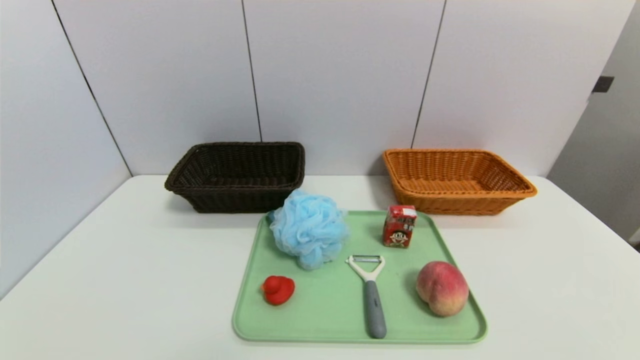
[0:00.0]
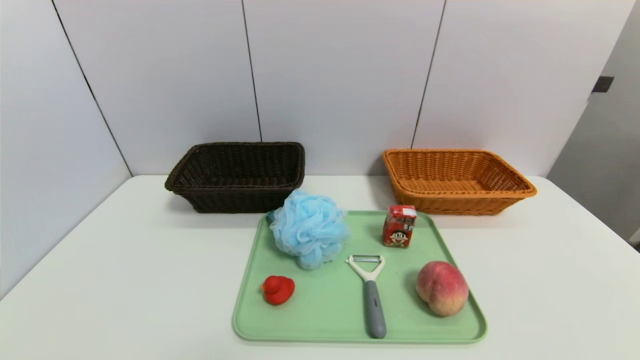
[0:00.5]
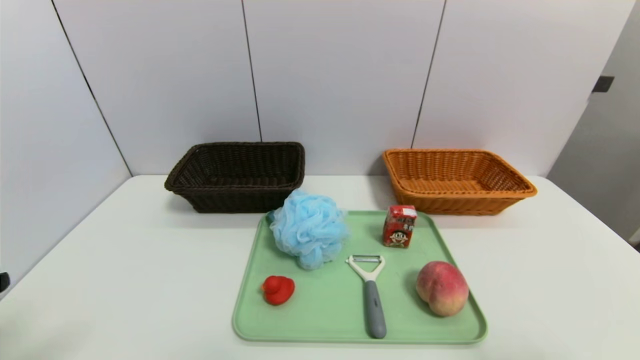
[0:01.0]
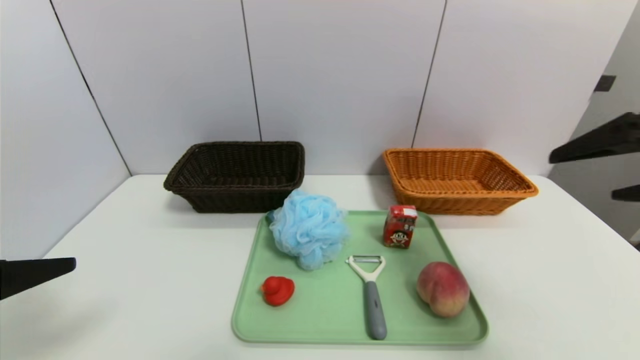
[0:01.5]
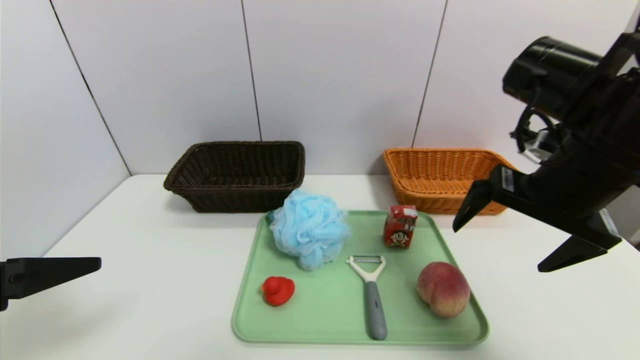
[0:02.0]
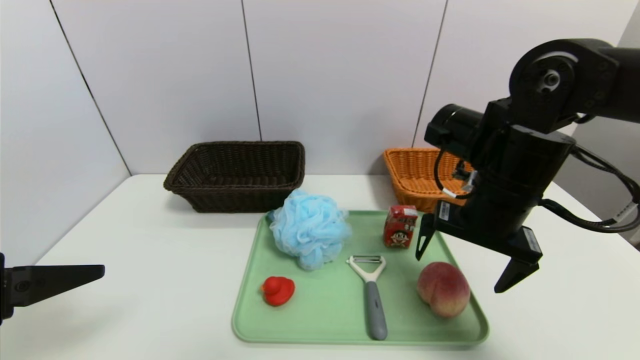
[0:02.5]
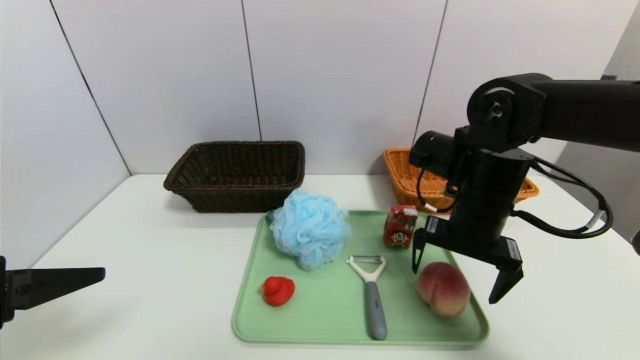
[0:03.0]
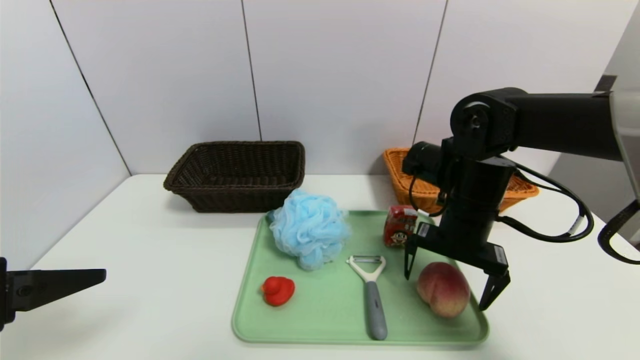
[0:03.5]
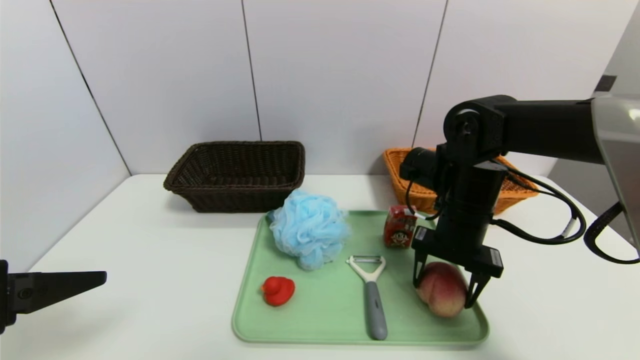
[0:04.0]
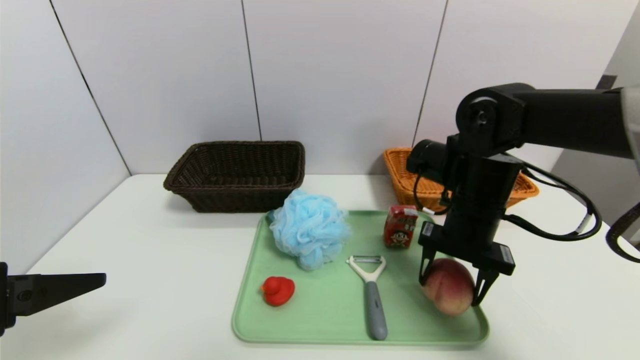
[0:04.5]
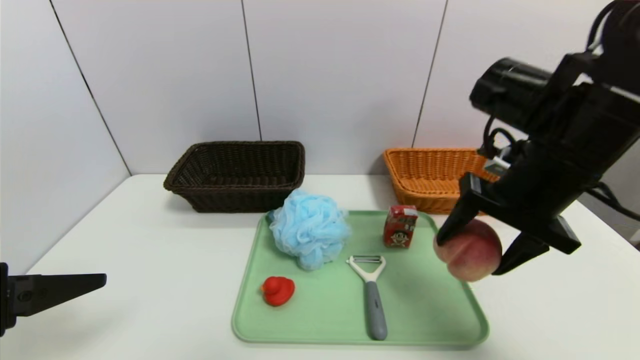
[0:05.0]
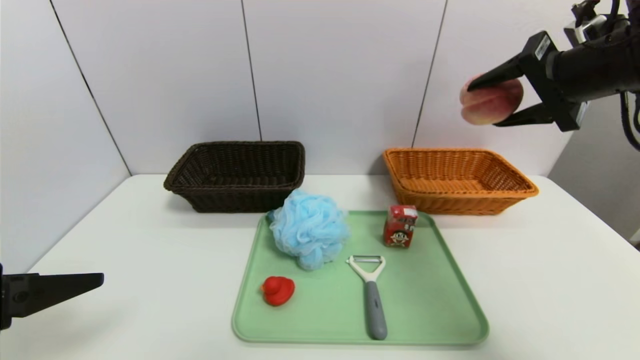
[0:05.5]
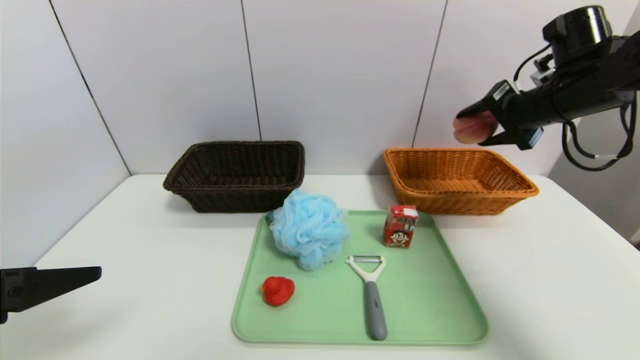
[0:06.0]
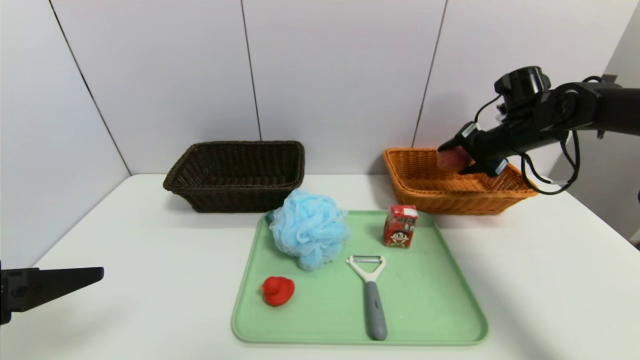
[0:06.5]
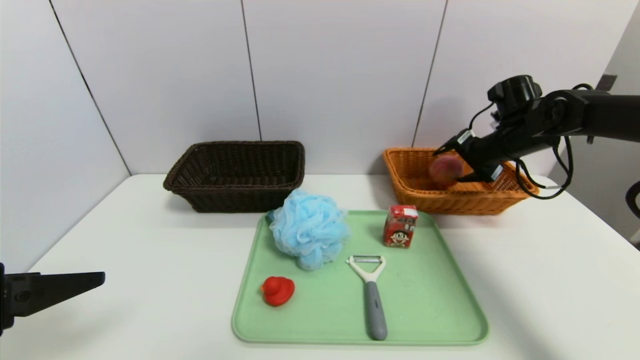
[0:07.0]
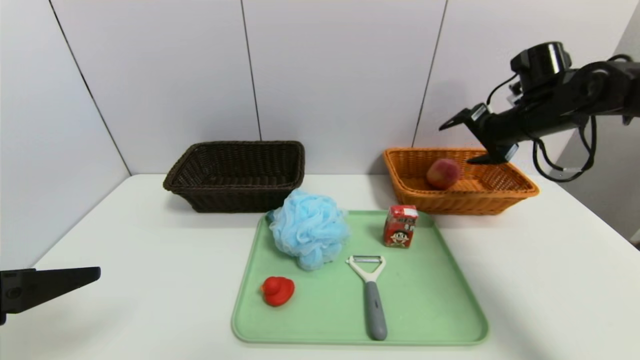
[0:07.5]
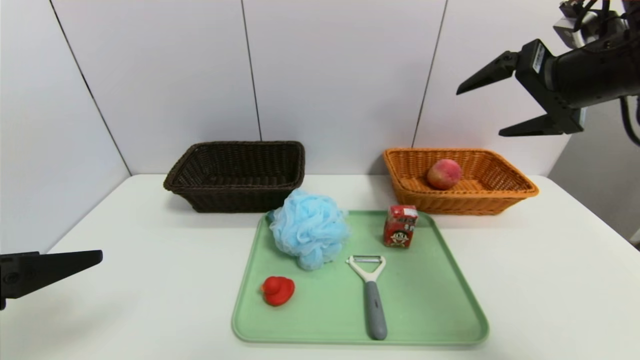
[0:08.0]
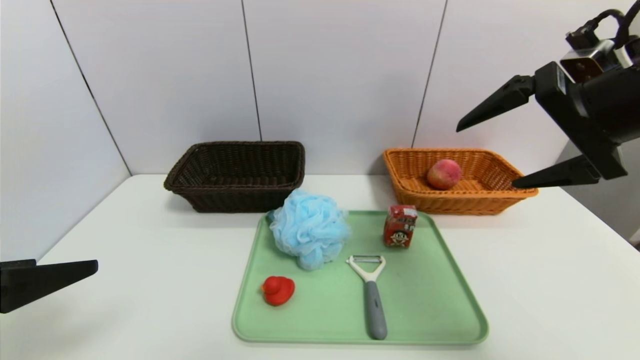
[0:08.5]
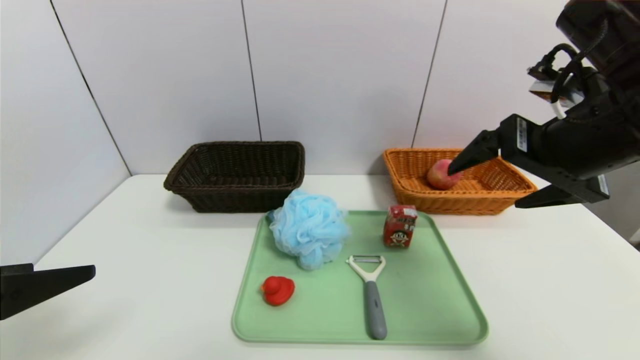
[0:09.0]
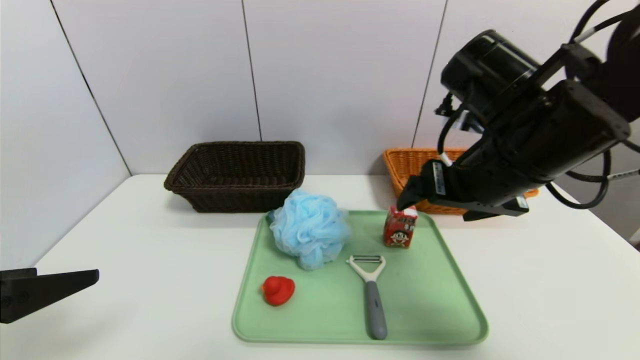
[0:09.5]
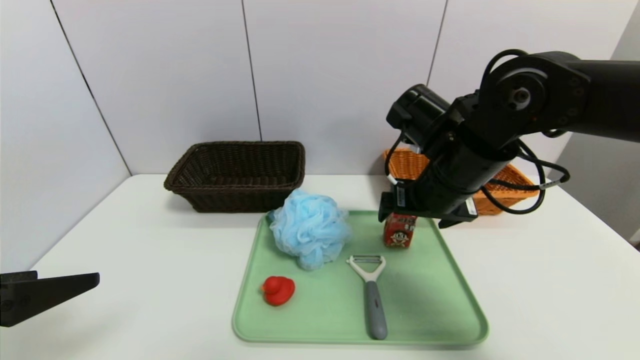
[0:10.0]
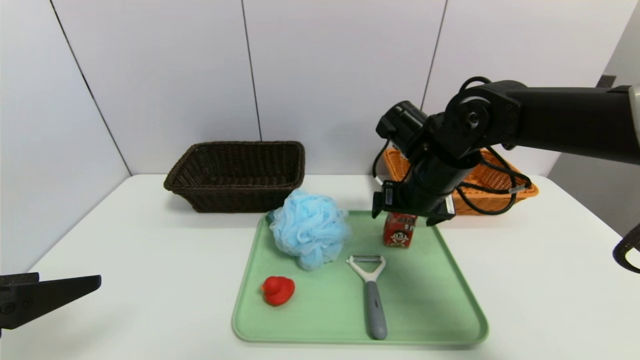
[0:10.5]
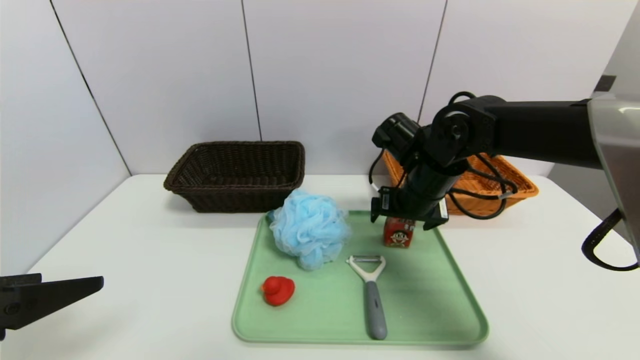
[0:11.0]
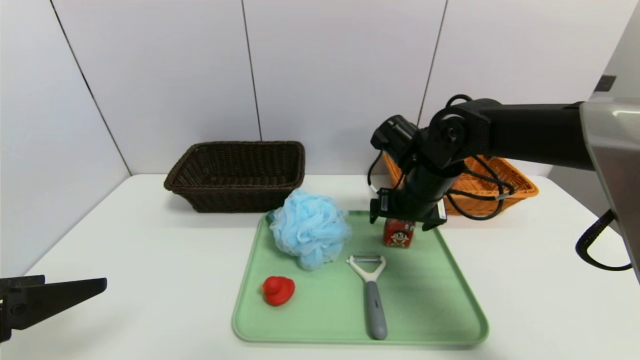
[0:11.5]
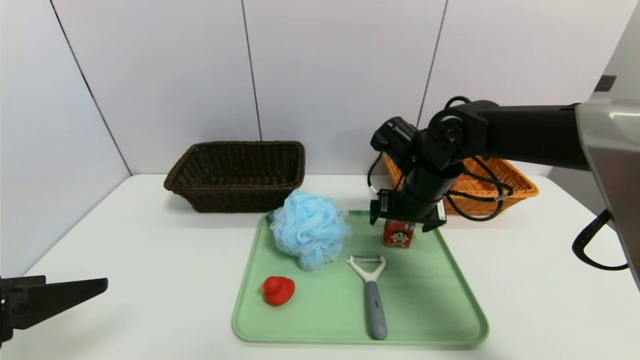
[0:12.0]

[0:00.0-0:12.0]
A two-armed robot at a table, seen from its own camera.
Task of the whole recording: place the food in the right basket with the right gripper, and place the non food items in the left basket with the left gripper.
Step, 0:00.0 to 0:07.5: Grasp the peach and put it in the right basket.
0:00.0 to 0:02.0: The left gripper heads upward and forward, covering roughly 20 cm. Meanwhile the right gripper moves forward, upward and to the left, approximately 35 cm.
0:02.0 to 0:04.0: The right gripper is displaced downward and forward by roughly 15 cm, and closes its fingers.
0:04.0 to 0:06.0: The right gripper shifts about 20 cm to the right, upward and forward.
0:06.0 to 0:08.0: The right gripper shifts some 15 cm backward and upward, and opens its fingers.
0:08.0 to 0:10.0: The right gripper travels to the left and downward by some 20 cm.
0:10.0 to 0:12.0: The right gripper moves forward and downward, about 10 cm.

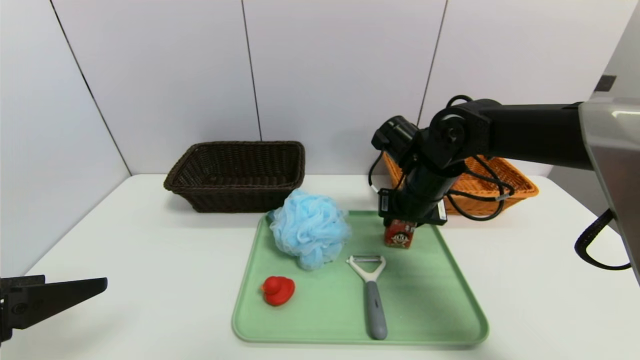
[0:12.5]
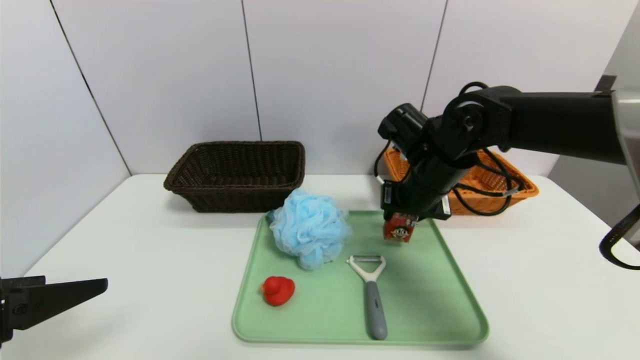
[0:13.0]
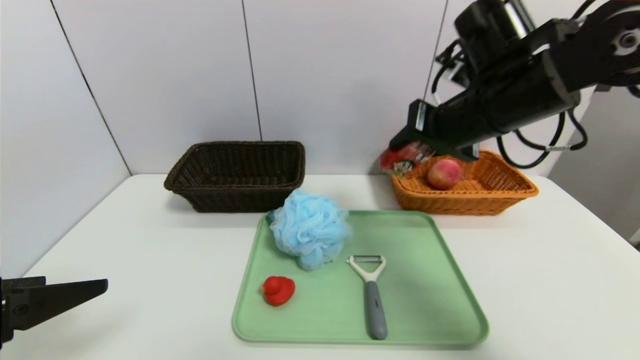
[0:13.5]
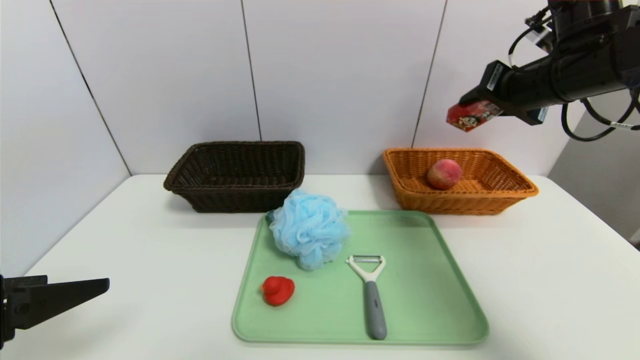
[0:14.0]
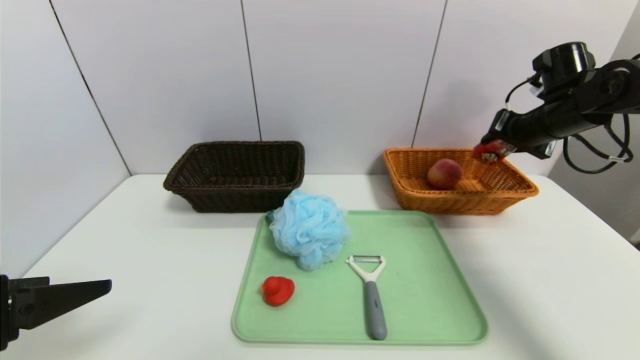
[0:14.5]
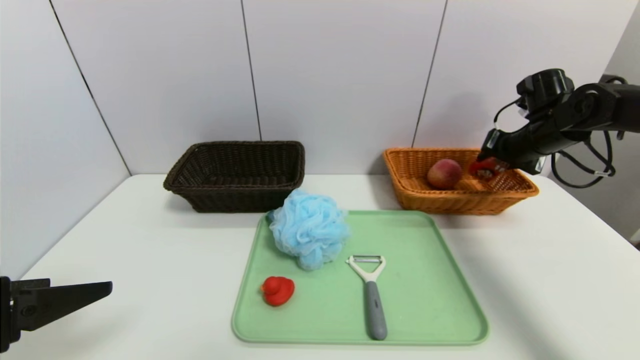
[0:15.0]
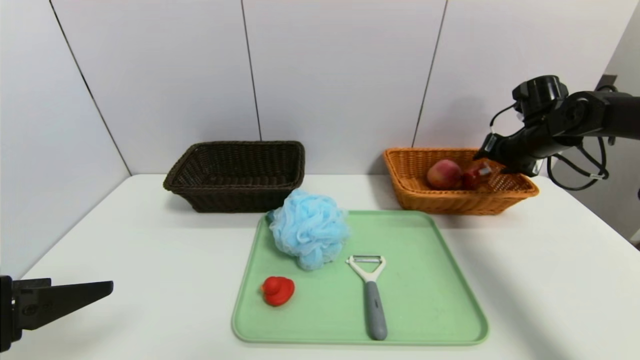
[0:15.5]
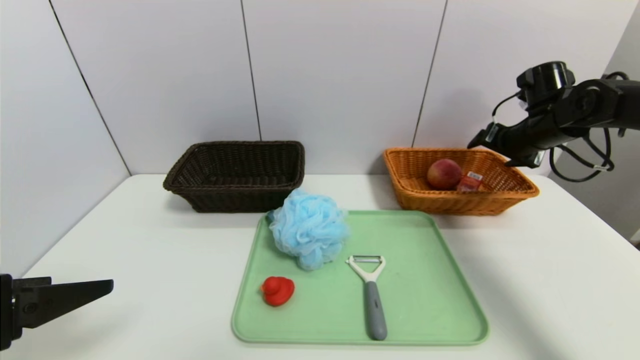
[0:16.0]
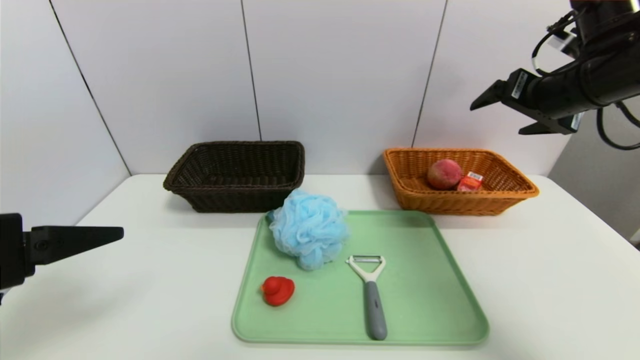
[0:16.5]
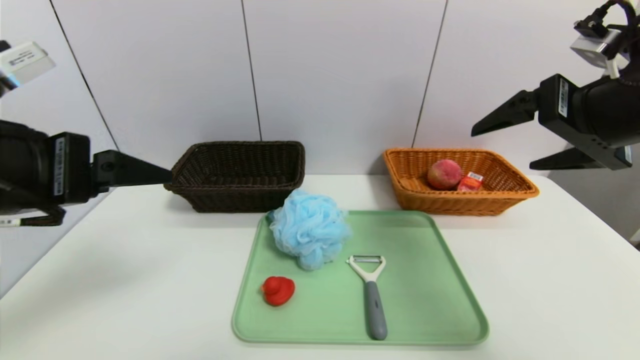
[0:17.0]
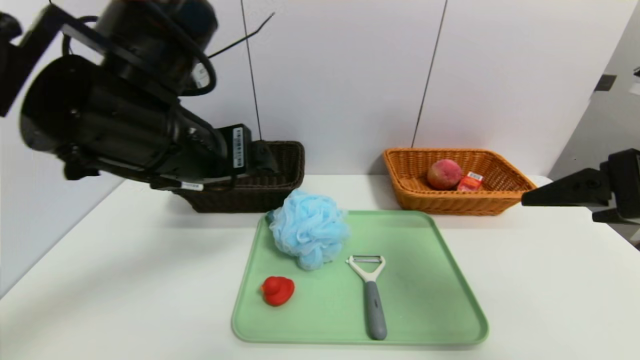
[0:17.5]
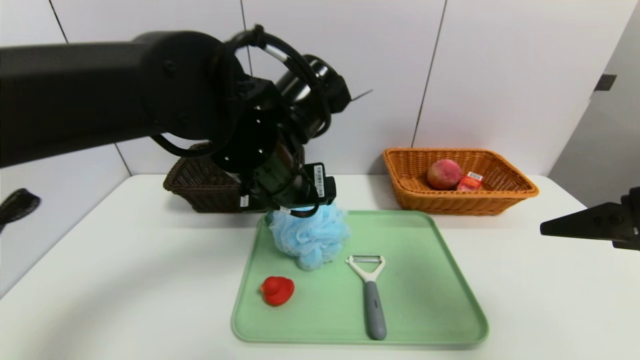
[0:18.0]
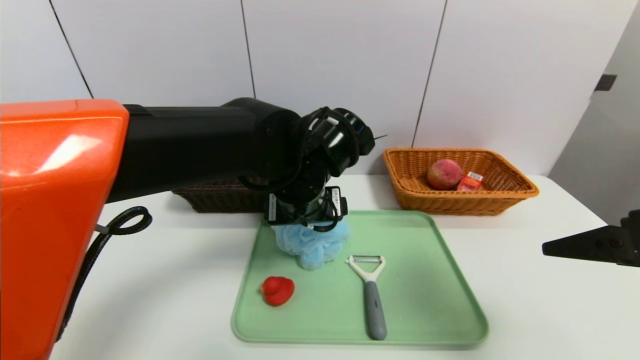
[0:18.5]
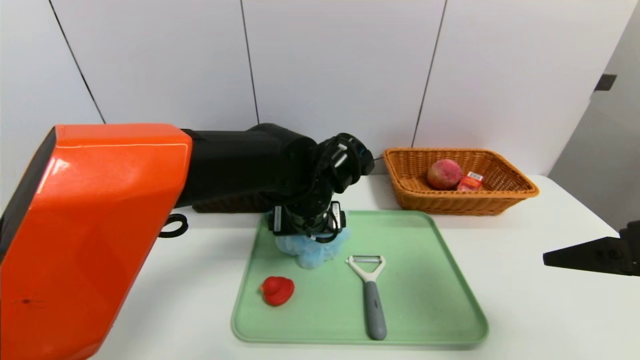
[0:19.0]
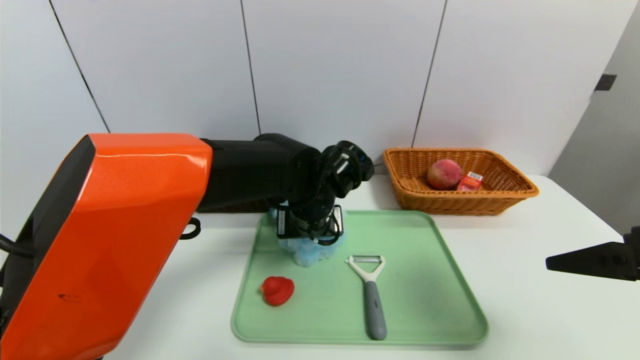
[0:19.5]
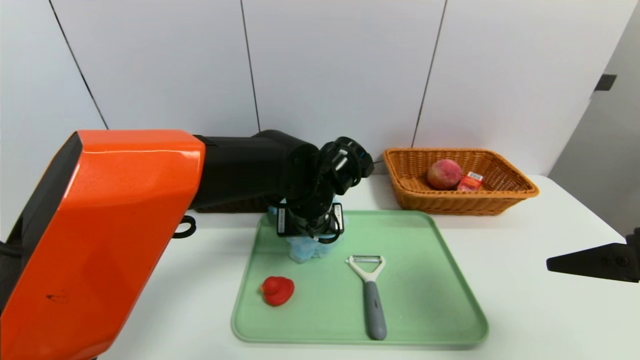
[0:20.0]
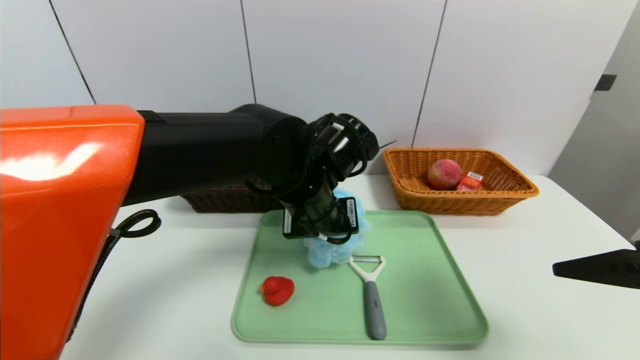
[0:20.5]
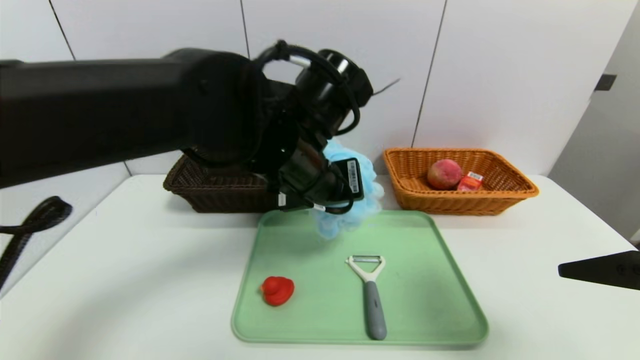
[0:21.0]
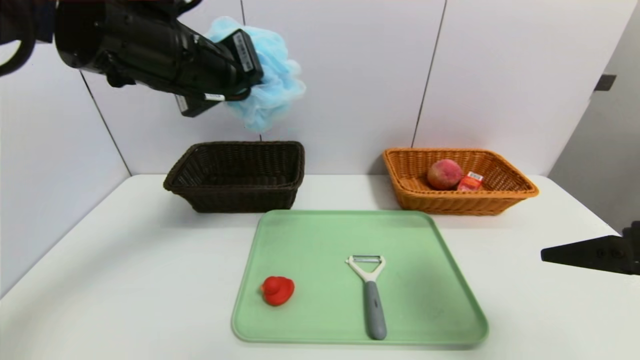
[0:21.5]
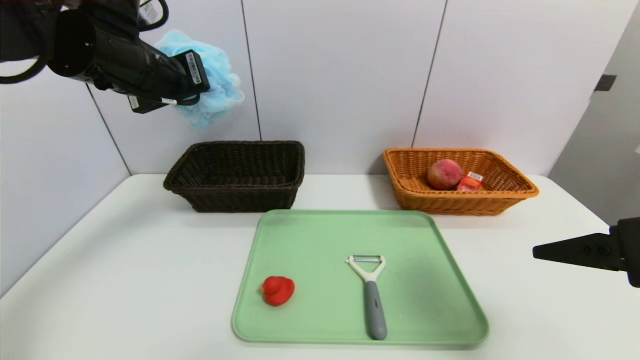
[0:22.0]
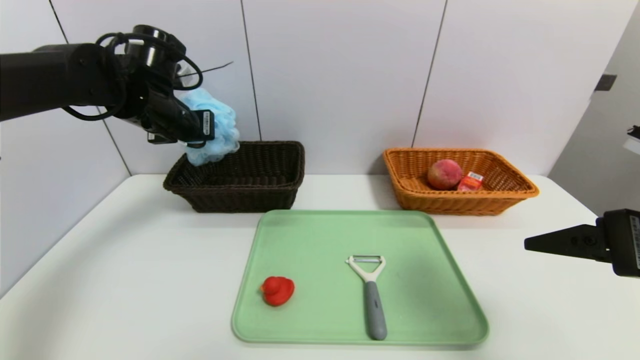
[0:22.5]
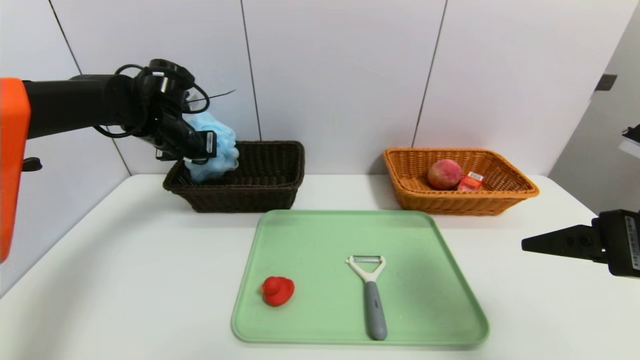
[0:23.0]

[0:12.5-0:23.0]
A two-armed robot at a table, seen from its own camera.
Task of the whole recording: place the food in the right basket with the right gripper, and place the non food items in the left basket with the left gripper.
Step, 0:12.5 to 0:16.0: Grasp the milk and put it in the right basket.
0:12.5 to 0:14.5: The right gripper goes some 20 cm to the right.
0:14.5 to 0:16.5: The right gripper is displaced backward, upward and to the left by approximately 15 cm, and opens up.
0:16.5 to 0:19.0: The right gripper heads backward, covering some 20 cm. The left gripper shifts approximately 35 cm to the right and forward.
0:19.0 to 0:21.0: The left gripper moves upward, roughly 10 cm, and closes up.
0:21.0 to 0:23.0: The left gripper is displaced to the left and forward by approximately 25 cm.
